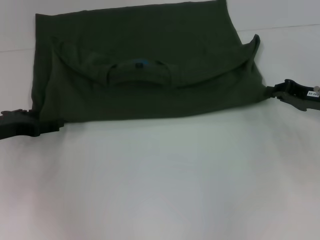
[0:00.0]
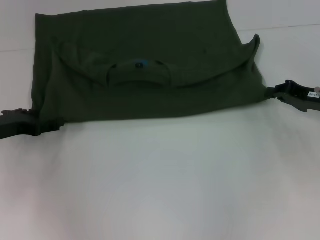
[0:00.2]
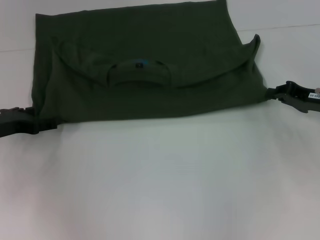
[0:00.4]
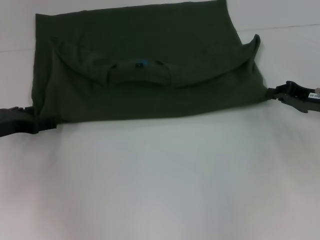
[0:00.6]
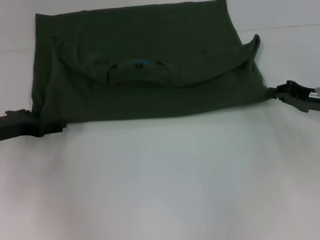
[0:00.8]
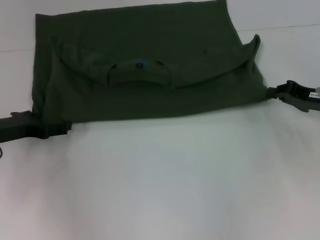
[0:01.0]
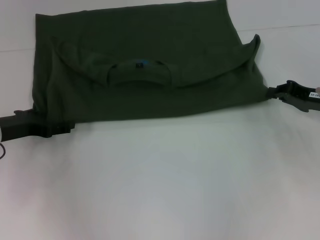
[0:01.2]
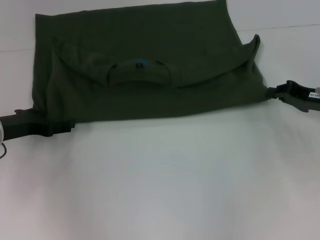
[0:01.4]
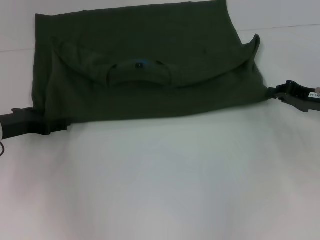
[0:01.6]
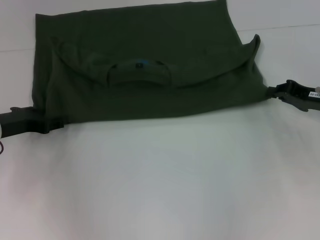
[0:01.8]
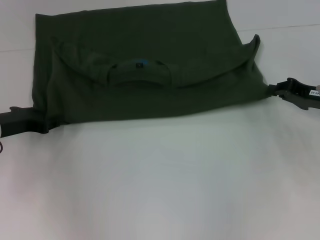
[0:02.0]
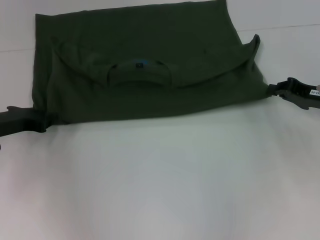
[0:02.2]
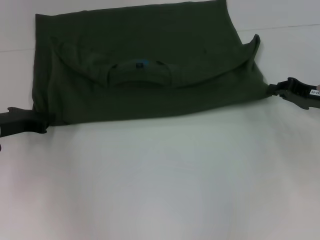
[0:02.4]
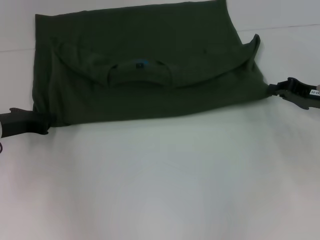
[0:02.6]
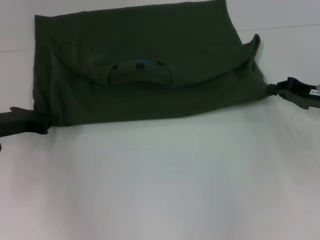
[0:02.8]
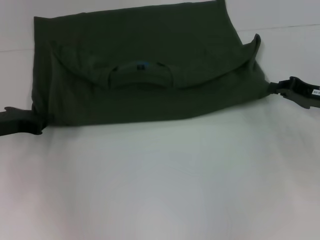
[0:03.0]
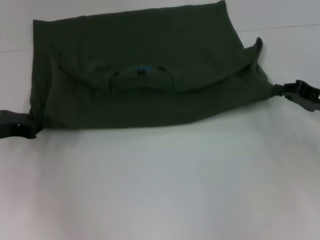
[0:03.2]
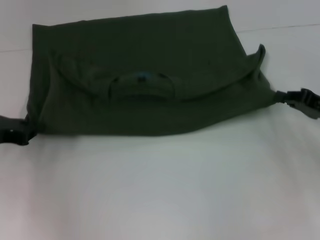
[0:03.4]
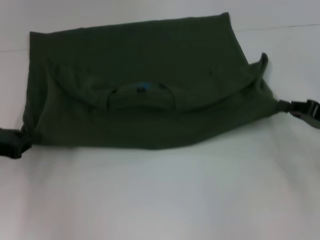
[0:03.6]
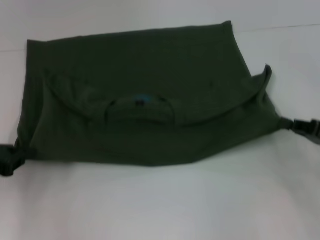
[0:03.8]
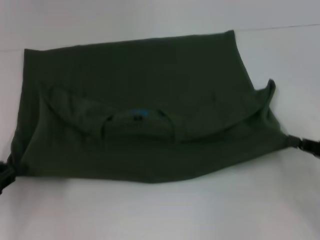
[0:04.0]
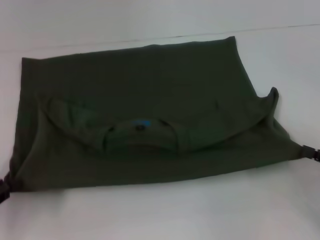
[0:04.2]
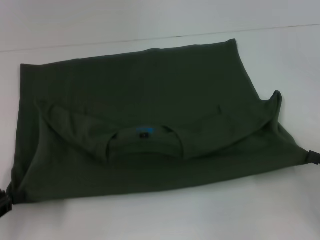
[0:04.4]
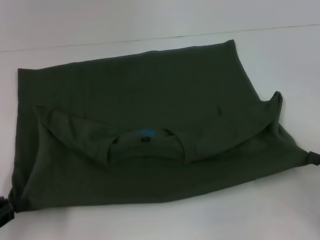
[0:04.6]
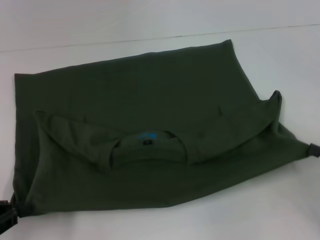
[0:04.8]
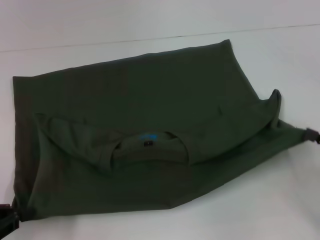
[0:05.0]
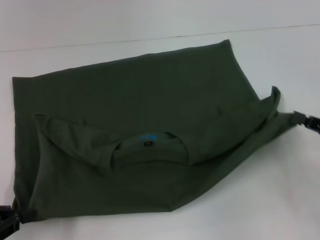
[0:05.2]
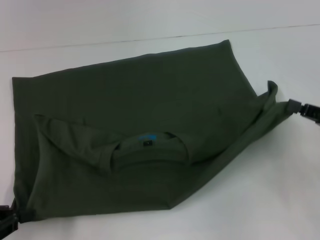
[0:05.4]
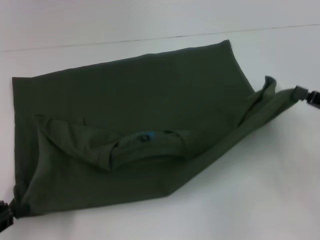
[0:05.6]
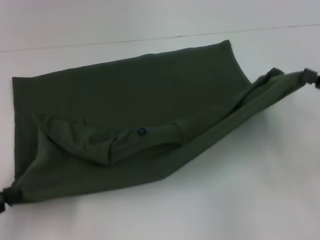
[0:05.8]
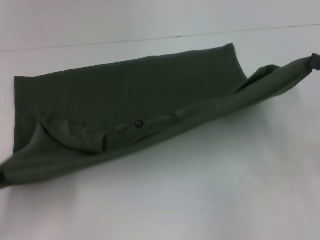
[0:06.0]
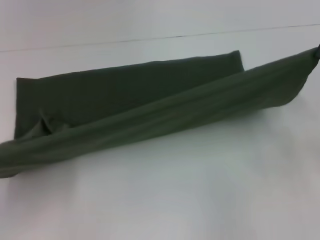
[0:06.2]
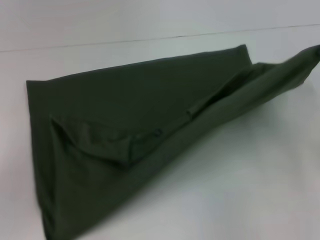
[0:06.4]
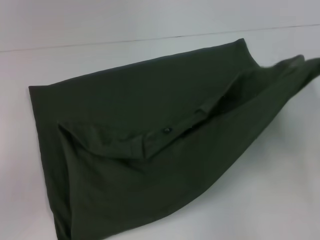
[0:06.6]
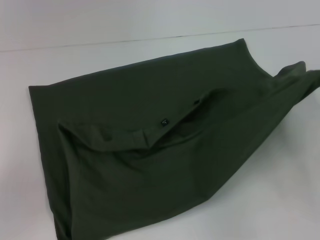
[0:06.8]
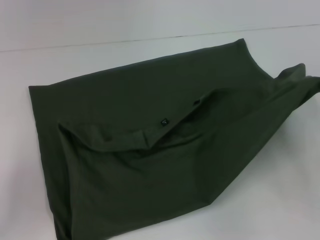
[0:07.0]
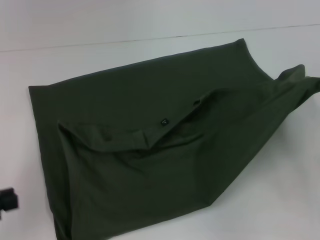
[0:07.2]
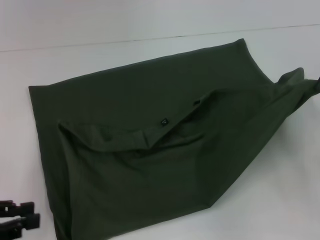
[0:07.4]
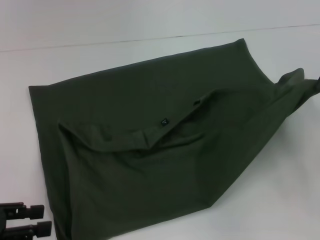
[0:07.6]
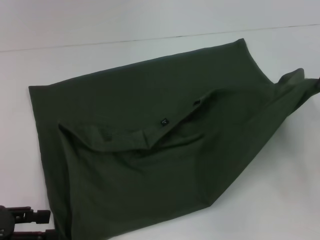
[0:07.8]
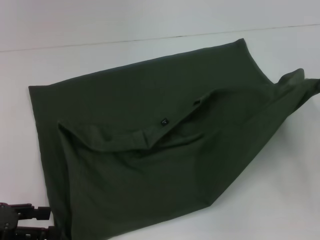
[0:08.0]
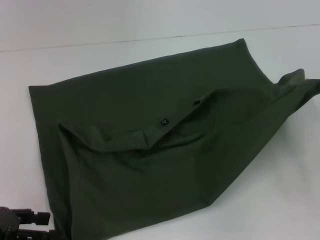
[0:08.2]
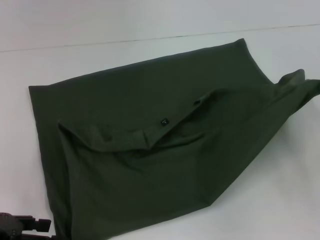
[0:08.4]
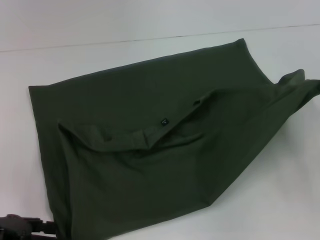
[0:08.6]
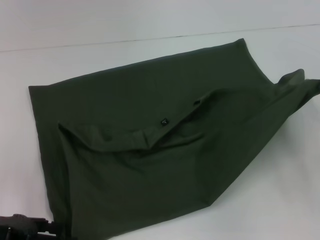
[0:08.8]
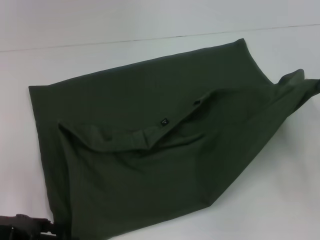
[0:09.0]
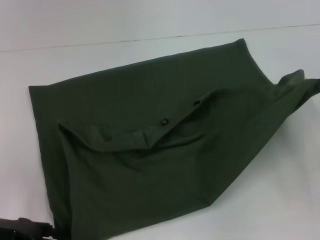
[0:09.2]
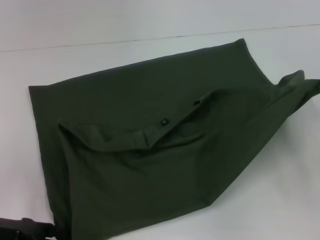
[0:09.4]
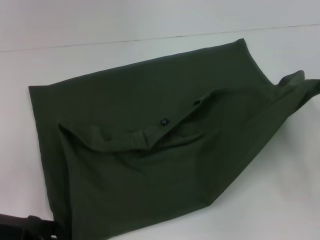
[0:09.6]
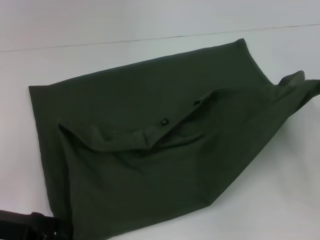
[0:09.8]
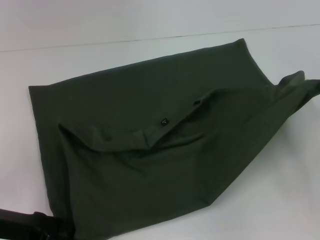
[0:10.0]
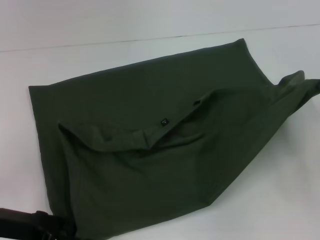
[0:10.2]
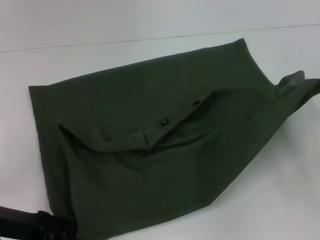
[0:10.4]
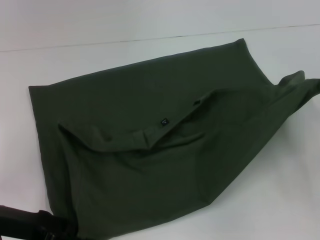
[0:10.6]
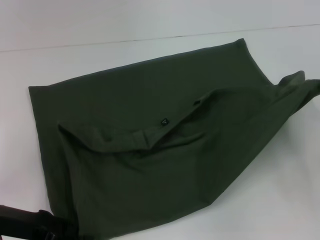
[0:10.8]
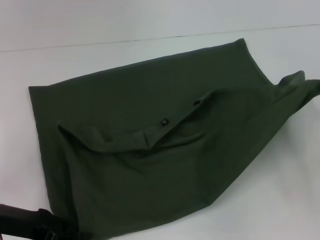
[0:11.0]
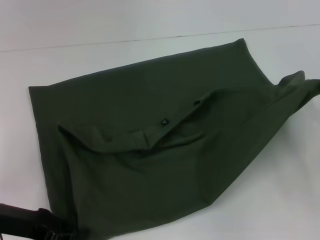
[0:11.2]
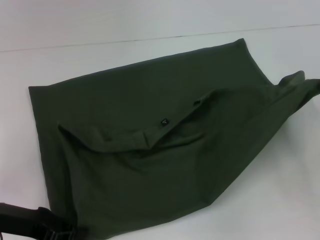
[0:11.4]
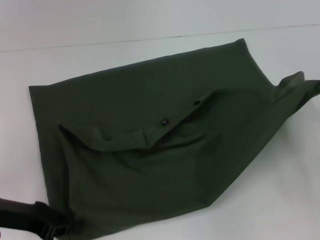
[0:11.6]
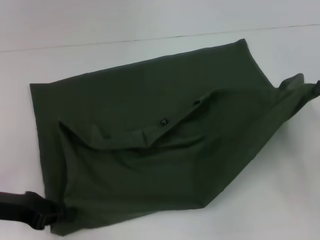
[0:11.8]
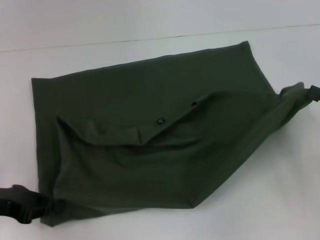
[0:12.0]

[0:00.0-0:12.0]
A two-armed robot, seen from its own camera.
Step, 0:00.6 to 0:04.6: Pull the clothes with your left hand.
Step, 0:00.6 to 0:04.6: Pull the clothes with your right hand.
0:00.0 to 0:01.6: The grippers stay close to where they were, moving slightly.
0:01.6 to 0:03.0: The left gripper closes.
0:03.0 to 0:04.4: The right gripper heads backward, covering roughly 15 cm, while the left gripper is displaced backward and to the left by about 15 cm.
0:04.4 to 0:06.0: The right gripper moves upward and forward, some 10 cm.
0:07.6 to 0:09.0: The left gripper ends up roughly 5 cm from where it was, and opens its fingers.
0:09.0 to 0:10.4: The grippers stay close to where they were, moving slightly.
0:10.4 to 0:12.0: The left gripper closes.

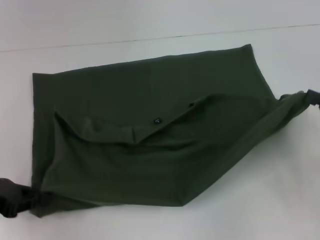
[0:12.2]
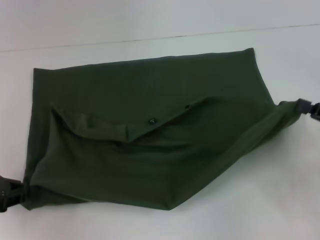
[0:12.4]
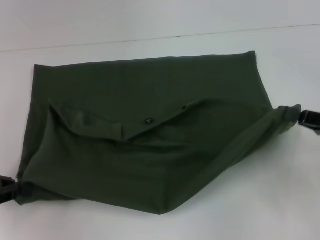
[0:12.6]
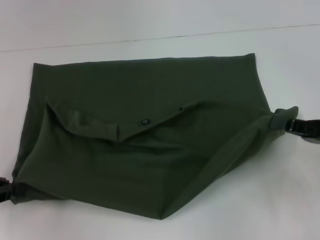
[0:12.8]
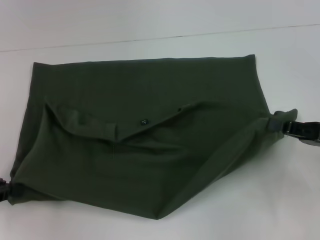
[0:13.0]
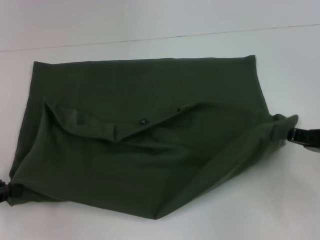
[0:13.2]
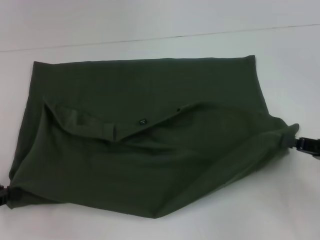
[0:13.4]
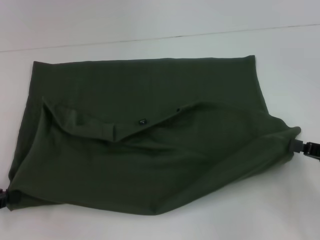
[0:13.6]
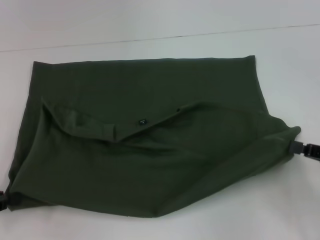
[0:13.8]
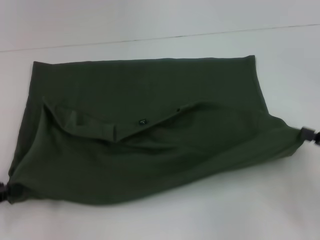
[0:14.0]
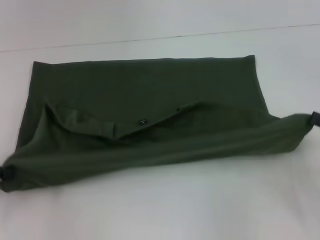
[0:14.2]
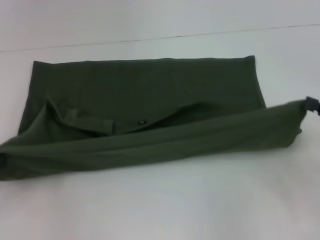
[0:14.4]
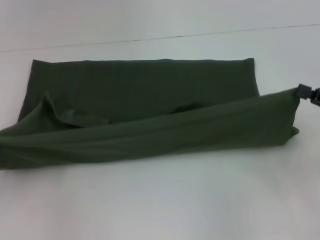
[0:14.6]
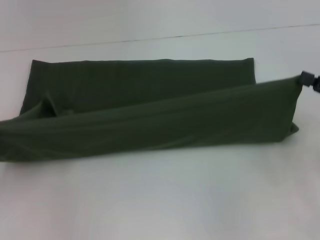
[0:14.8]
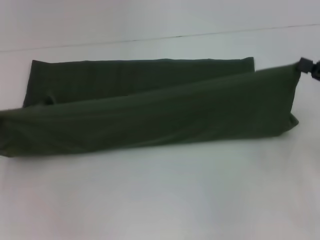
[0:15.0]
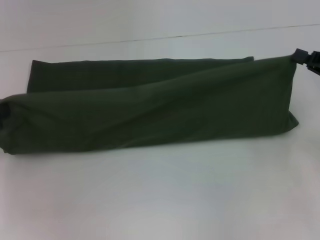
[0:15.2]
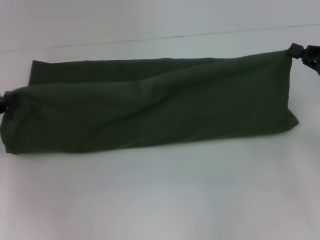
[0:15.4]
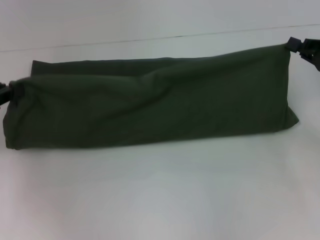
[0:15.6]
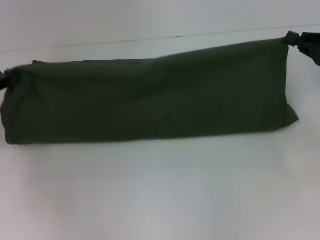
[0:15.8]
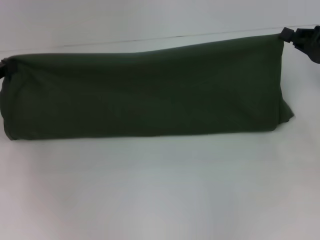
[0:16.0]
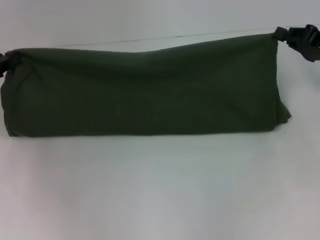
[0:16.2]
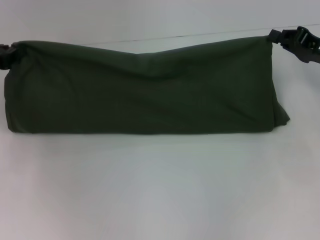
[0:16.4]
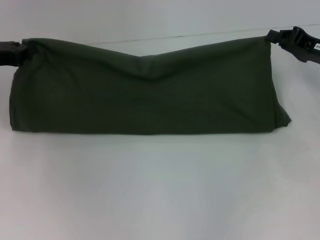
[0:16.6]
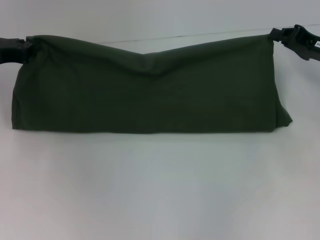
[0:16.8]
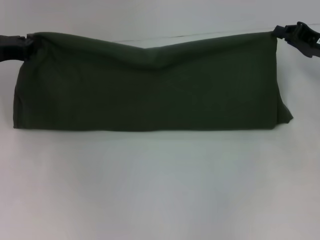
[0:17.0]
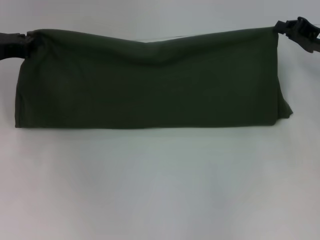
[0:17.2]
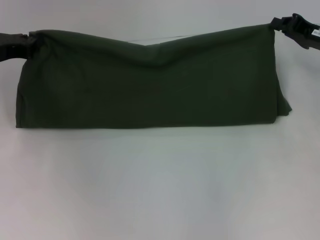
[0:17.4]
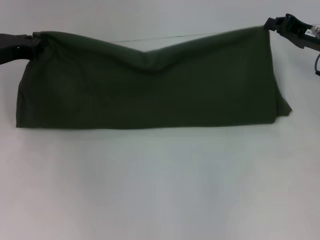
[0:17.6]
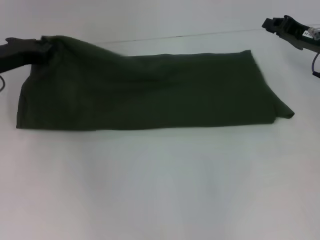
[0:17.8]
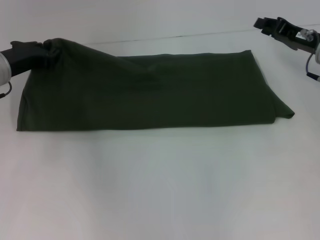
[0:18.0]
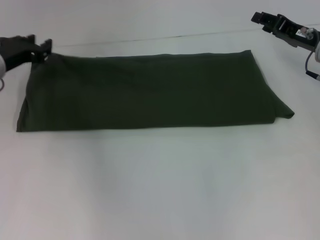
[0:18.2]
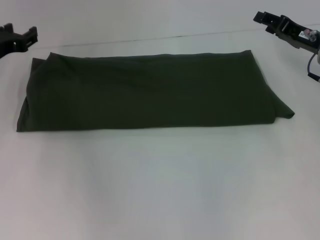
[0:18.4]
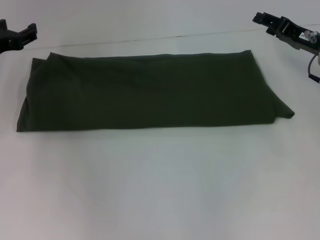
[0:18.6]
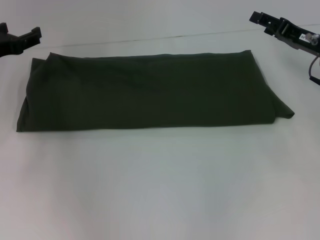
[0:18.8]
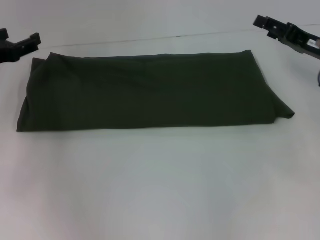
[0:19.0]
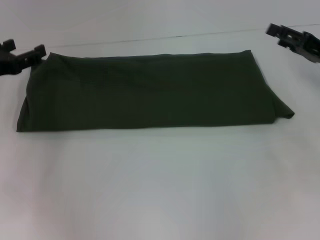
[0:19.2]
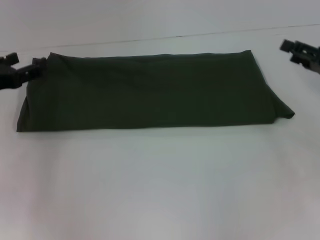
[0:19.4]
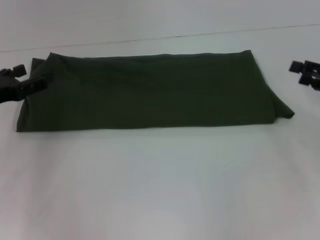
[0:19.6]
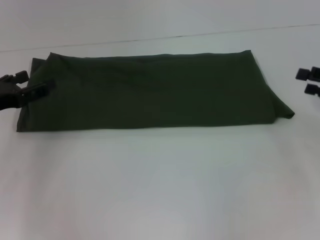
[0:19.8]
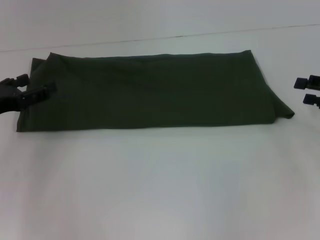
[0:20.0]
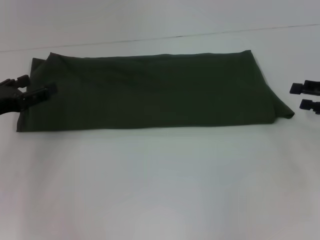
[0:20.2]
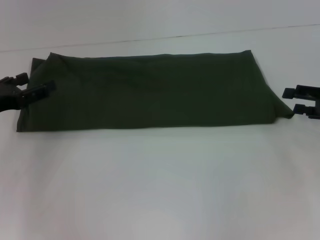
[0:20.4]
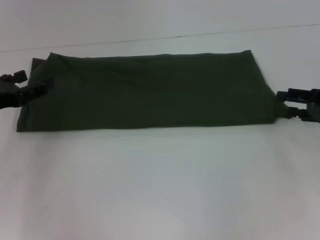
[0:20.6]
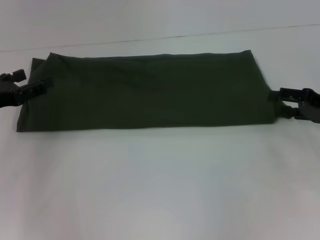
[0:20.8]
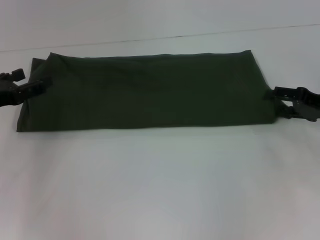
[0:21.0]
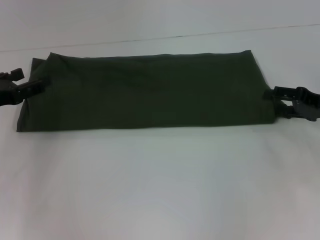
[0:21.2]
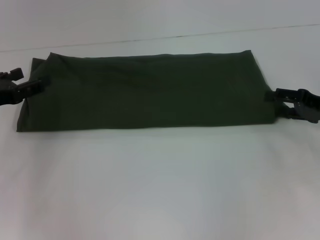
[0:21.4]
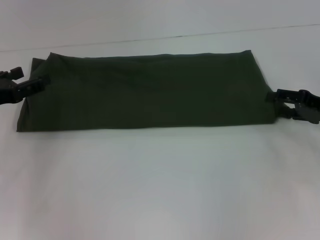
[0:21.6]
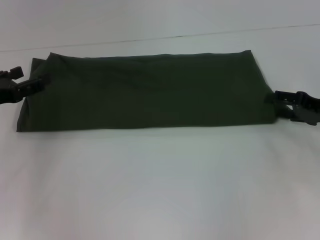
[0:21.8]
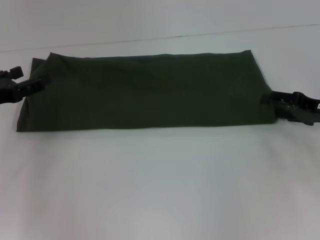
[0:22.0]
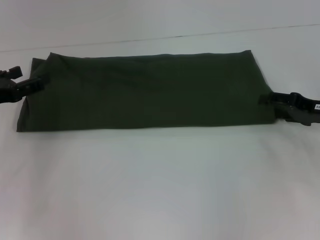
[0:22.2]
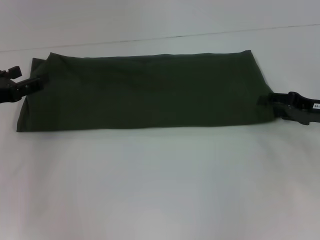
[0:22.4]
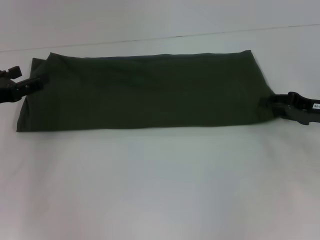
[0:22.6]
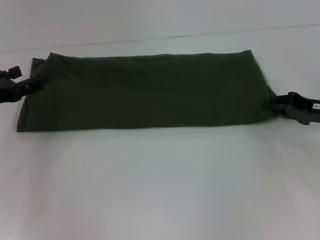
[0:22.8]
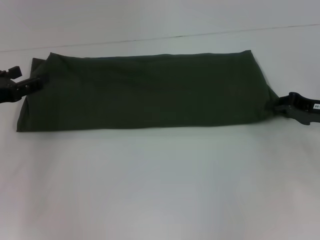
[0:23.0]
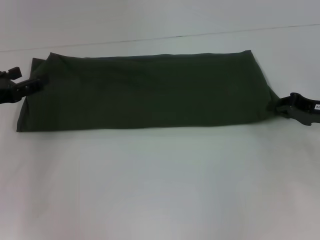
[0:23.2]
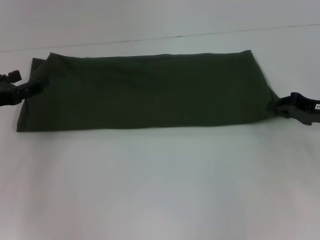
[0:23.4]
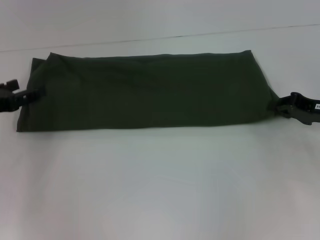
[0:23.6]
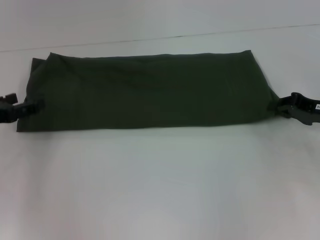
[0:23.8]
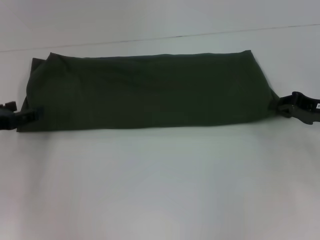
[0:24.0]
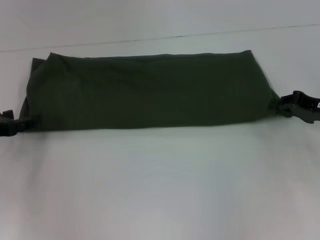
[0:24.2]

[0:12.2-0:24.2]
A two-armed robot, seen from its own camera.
Step, 0:12.2 to 0:18.2: Fold the clothes with your right hand.
0:12.2 to 0:13.8: The grippers move only a little.
0:13.8 to 0:15.2: The left gripper goes some 10 cm upward and forward. The right gripper shifts about 10 cm forward.
0:15.2 to 0:16.6: The left gripper shifts about 10 cm forward and to the right. The right gripper travels forward by roughly 5 cm.
0:16.6 to 0:18.2: The left gripper travels to the right by some 5 cm. Meanwhile the right gripper opens its fingers.
0:18.2 to 0:19.8: The left gripper is displaced backward and to the left by roughly 10 cm, and opens up, while the right gripper travels backward and to the right by approximately 15 cm, and opens.
0:19.8 to 0:21.2: The right gripper ends up some 5 cm from where it was.
0:21.2 to 0:22.6: The grippers stay close to where they were, moving slightly.
0:22.6 to 0:24.2: The right gripper closes up.
